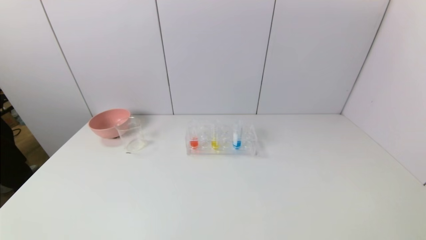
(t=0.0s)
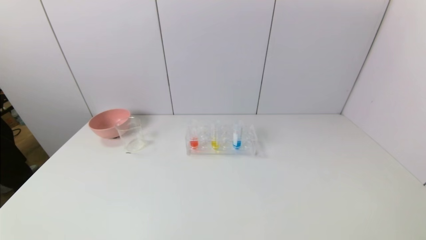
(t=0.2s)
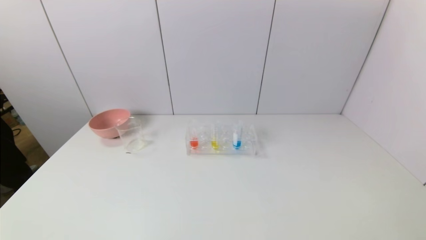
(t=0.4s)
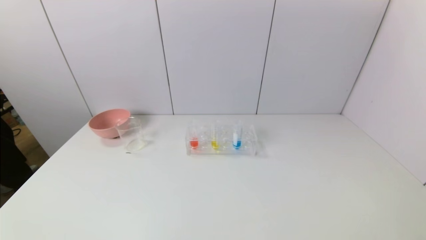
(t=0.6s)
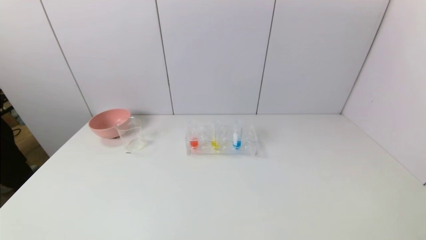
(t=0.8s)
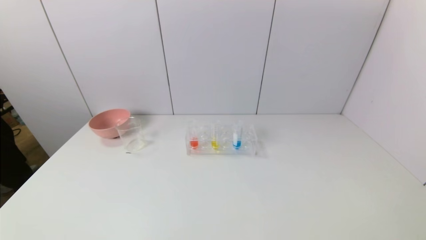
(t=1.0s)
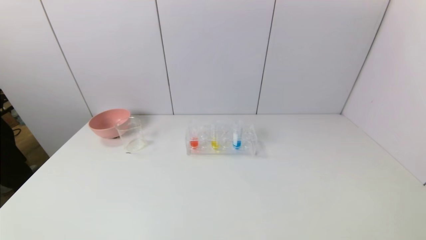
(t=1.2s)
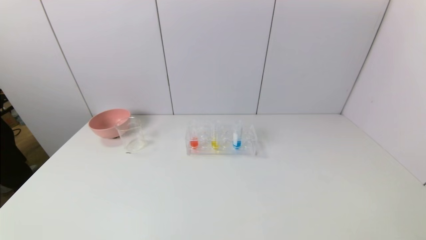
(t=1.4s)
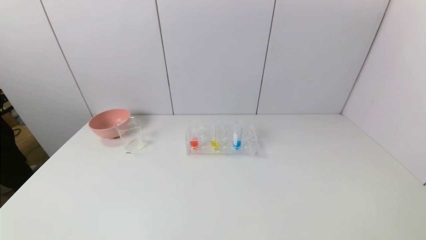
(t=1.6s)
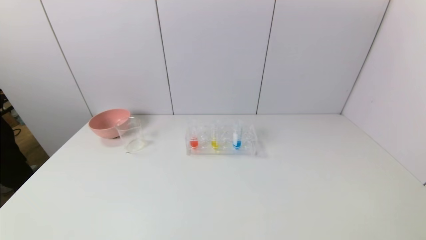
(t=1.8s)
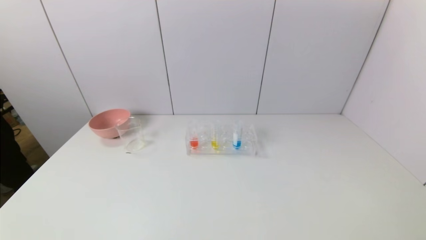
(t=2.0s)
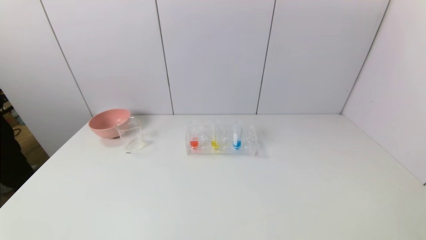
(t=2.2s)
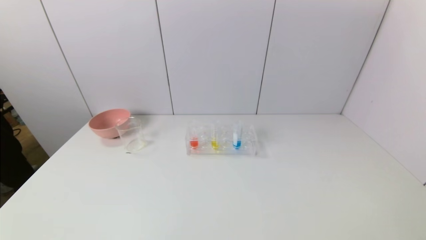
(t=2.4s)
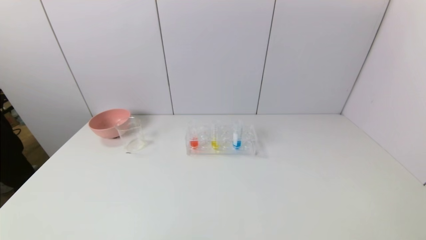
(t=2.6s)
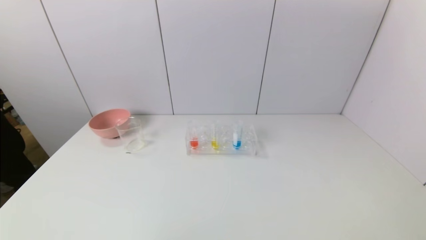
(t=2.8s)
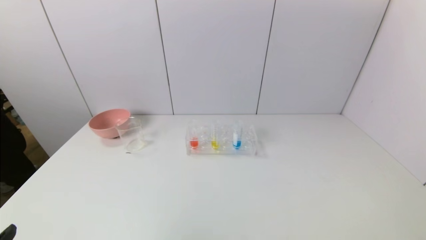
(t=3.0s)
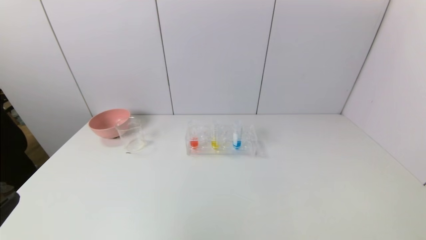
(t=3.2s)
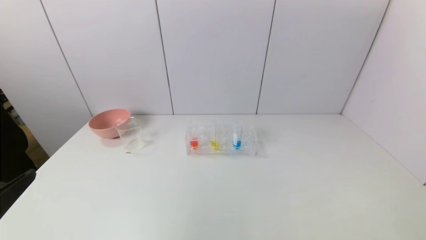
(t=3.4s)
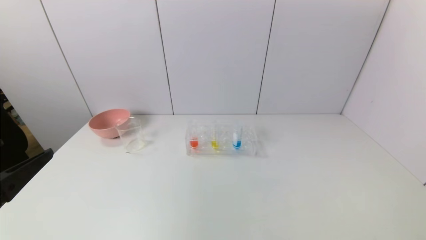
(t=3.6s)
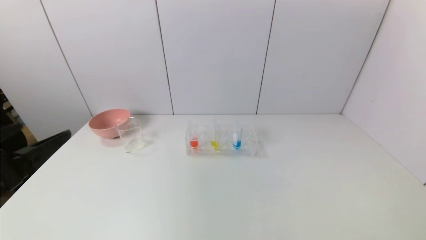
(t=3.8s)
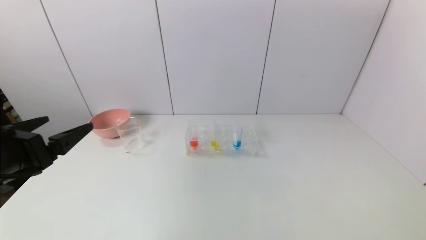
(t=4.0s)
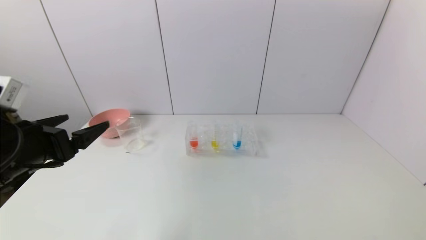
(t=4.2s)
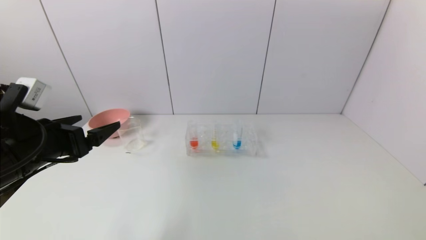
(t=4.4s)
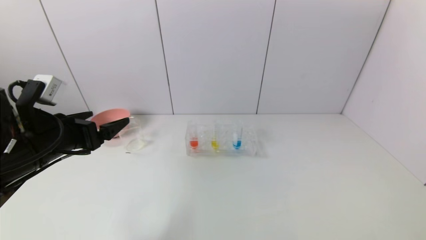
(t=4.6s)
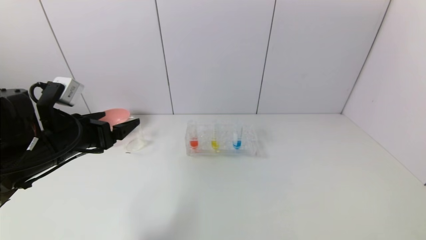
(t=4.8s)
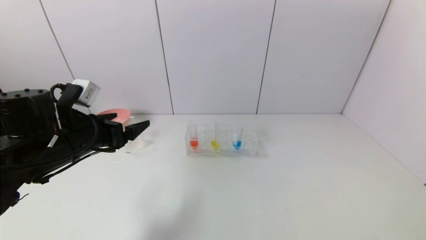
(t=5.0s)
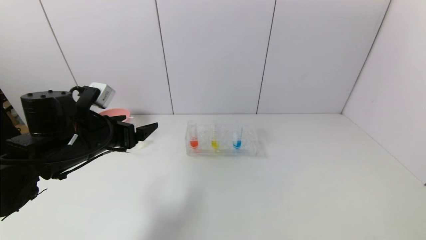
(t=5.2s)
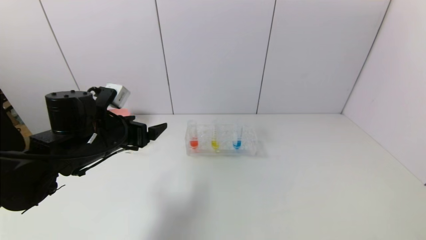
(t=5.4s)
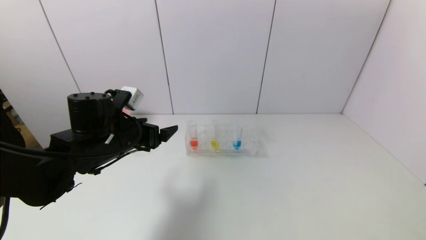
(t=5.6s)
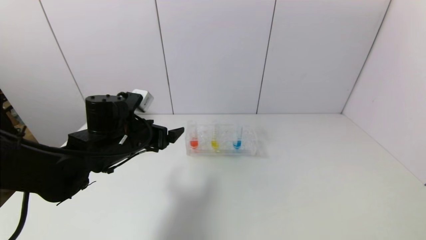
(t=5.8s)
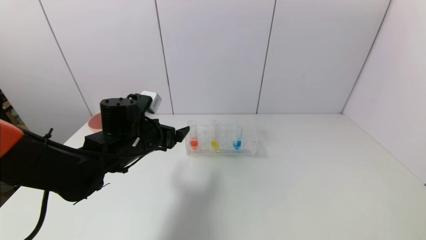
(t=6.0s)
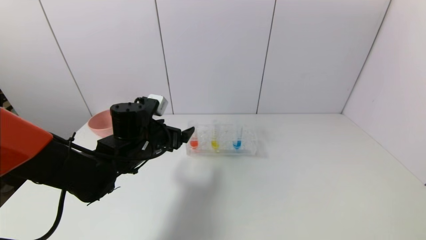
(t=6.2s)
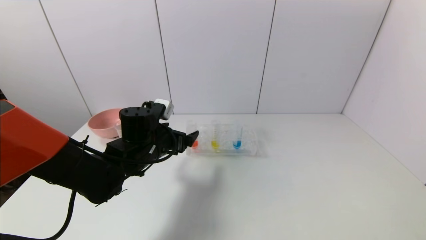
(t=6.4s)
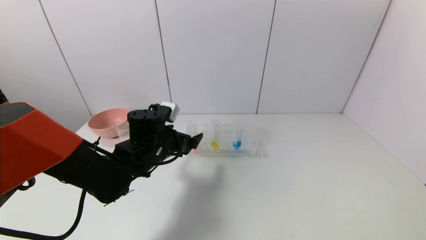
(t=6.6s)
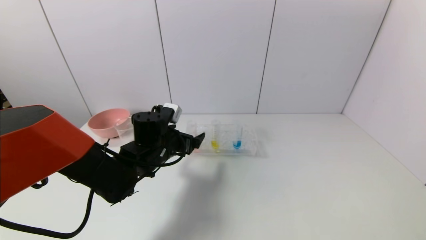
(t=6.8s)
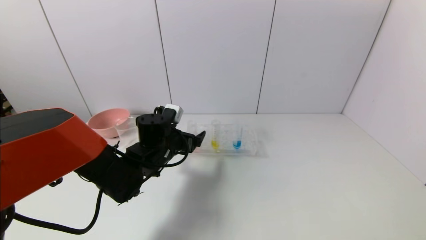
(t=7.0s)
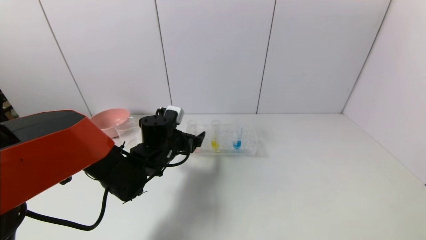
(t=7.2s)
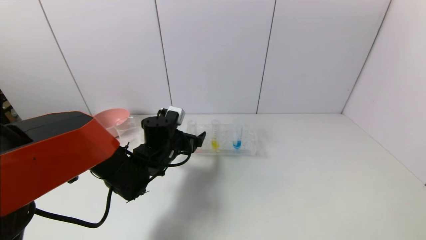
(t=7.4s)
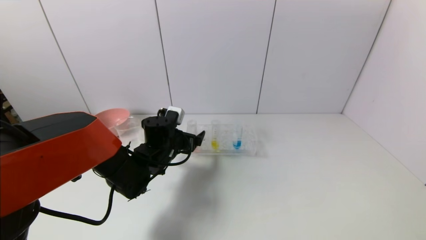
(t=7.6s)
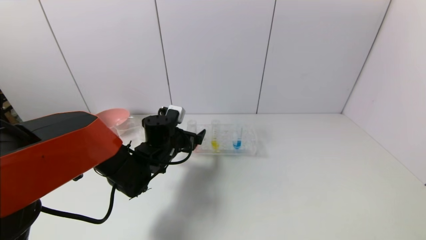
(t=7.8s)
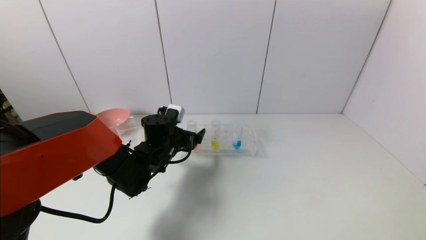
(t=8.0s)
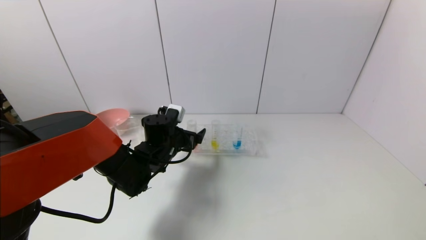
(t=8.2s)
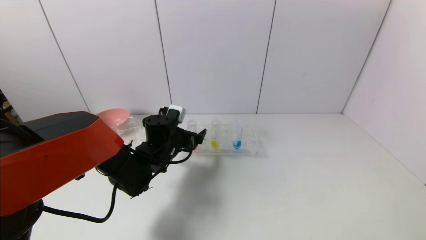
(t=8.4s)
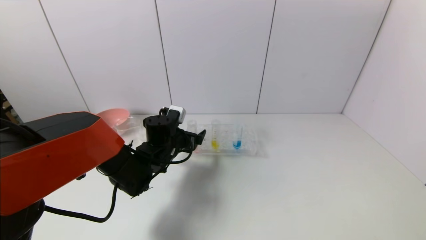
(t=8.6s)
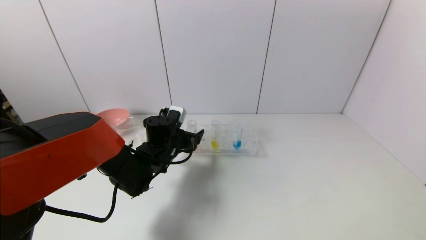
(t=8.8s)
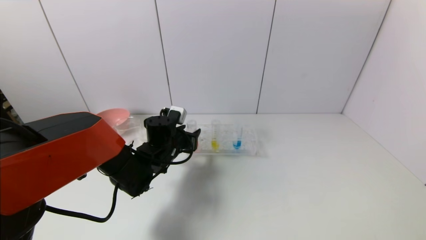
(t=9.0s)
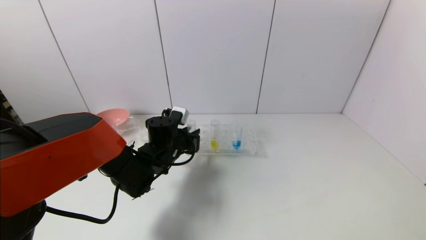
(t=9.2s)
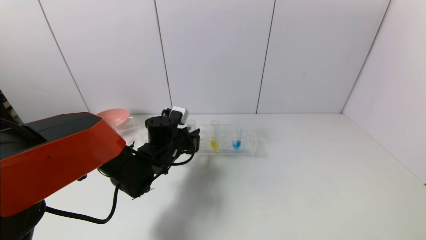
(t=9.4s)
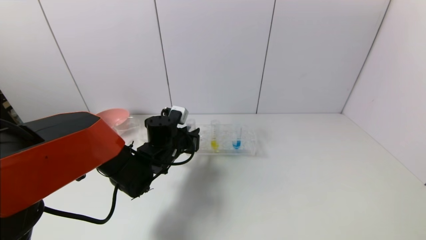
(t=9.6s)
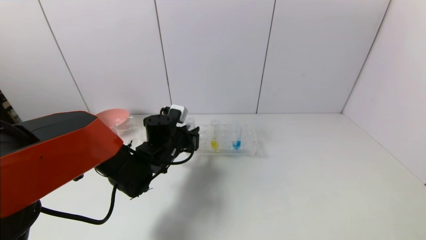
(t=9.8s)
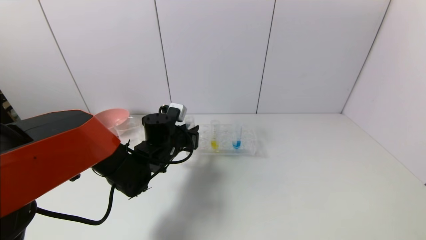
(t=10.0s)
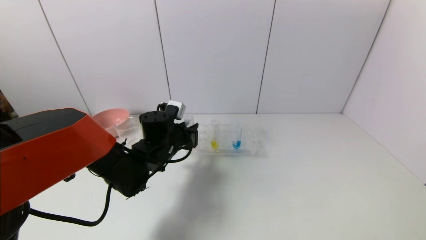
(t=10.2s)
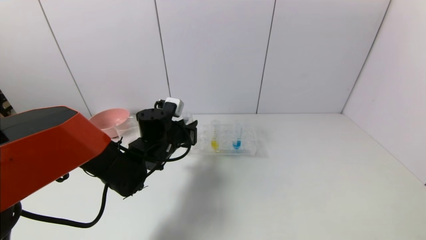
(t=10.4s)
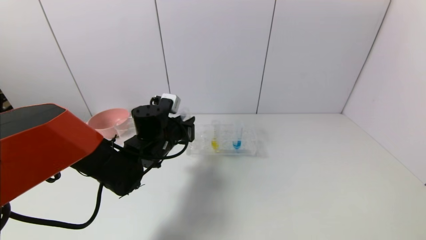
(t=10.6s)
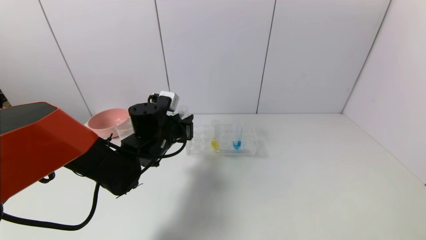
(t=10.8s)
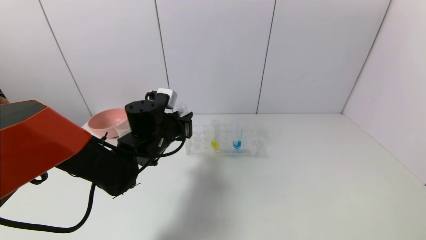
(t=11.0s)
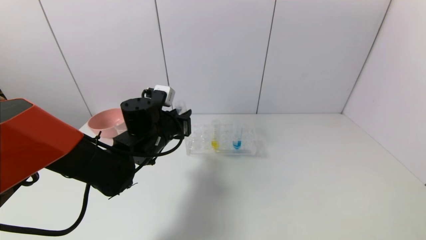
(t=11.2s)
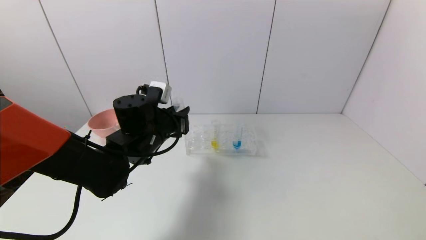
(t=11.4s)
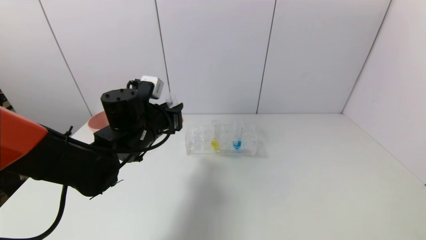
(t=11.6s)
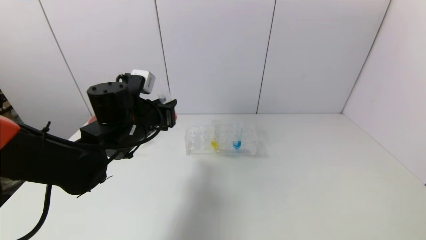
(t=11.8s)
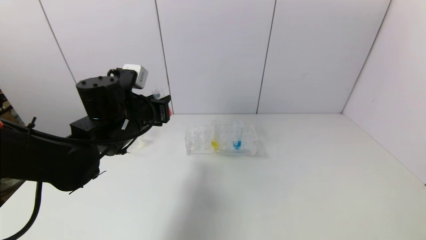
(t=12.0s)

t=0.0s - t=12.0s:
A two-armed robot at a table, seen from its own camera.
Task of the whole recording: pick up the test tube with yellow pigment and the test tube with red pigment by grippers and pour them into the beaker.
Step, t=0.0s - t=9.4s: Grasp the red reagent with the left gripper.
t=0.0s - t=1.6s: Neither gripper changes place.
t=3.0s - t=4.4s: The left gripper travels forward by approximately 20 cm.
t=4.4s - t=6.0s: The left gripper heads to the right, forward and downward, covering roughly 15 cm.
t=6.0s - t=7.6s: The left gripper goes about 10 cm downward and forward.
t=7.6s - t=9.0s: The left gripper closes its fingers.
t=9.0s - t=10.4s: The left gripper closes its fingers.
t=10.4s - t=12.0s: The left gripper shifts approximately 10 cm upward and to the left.

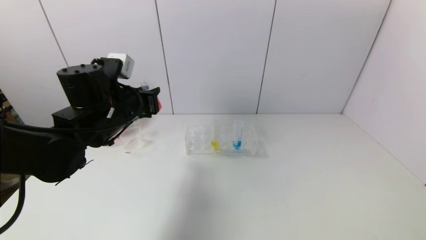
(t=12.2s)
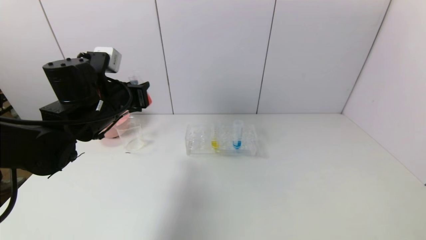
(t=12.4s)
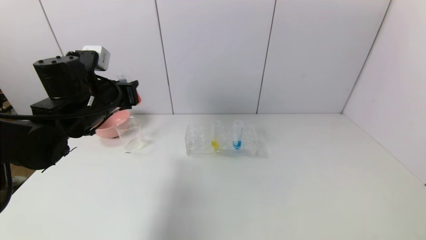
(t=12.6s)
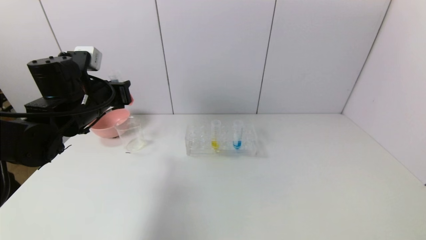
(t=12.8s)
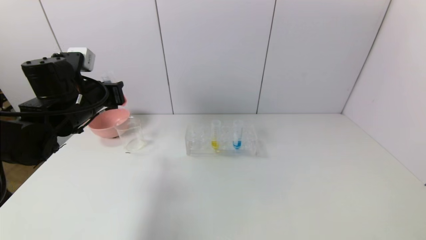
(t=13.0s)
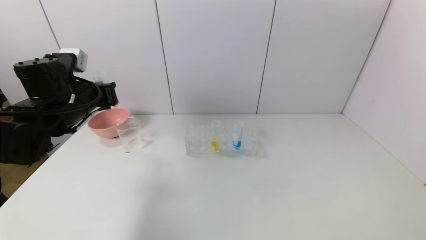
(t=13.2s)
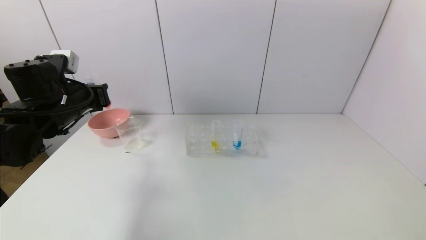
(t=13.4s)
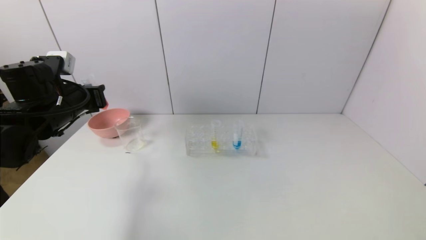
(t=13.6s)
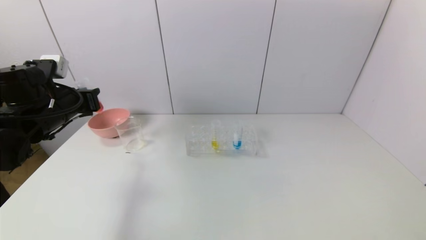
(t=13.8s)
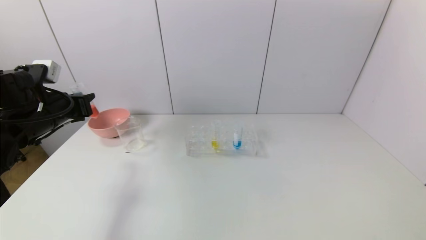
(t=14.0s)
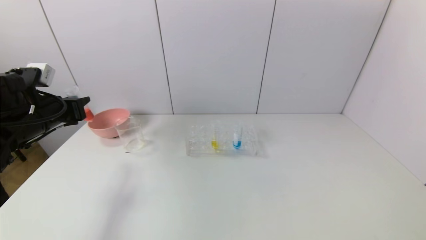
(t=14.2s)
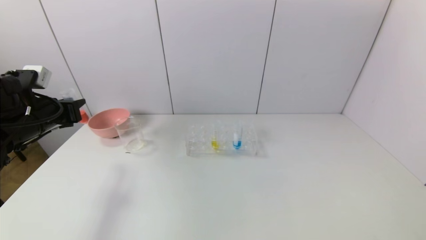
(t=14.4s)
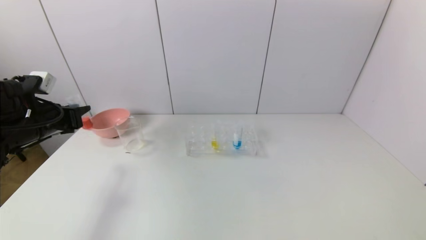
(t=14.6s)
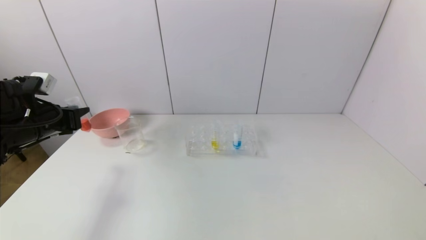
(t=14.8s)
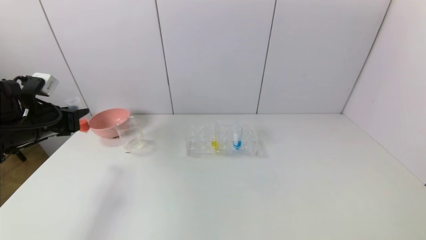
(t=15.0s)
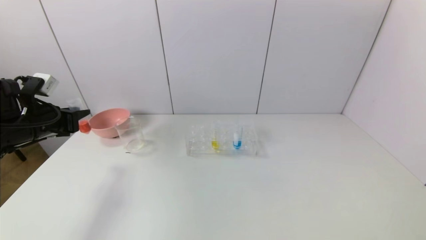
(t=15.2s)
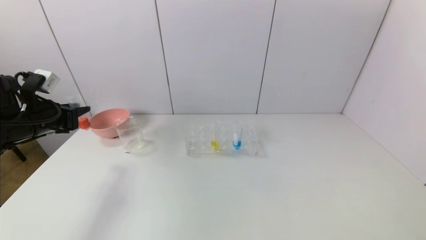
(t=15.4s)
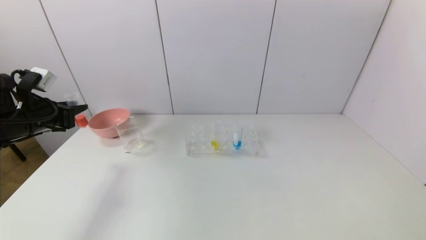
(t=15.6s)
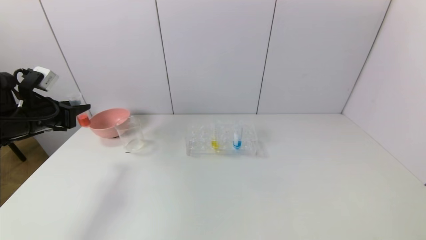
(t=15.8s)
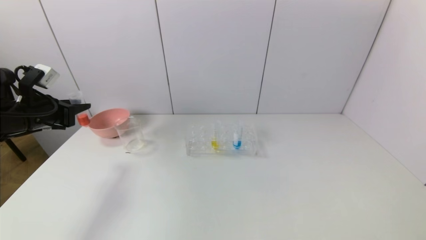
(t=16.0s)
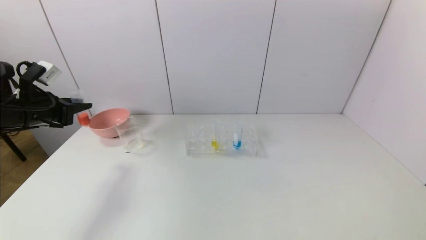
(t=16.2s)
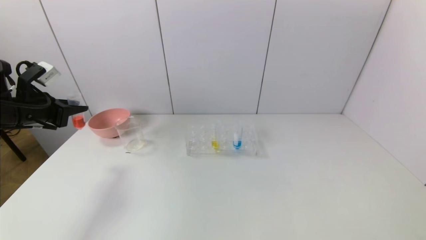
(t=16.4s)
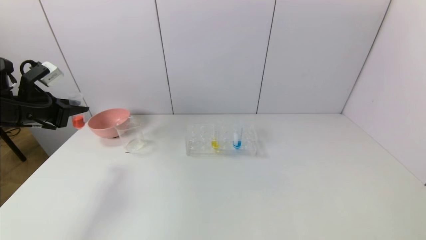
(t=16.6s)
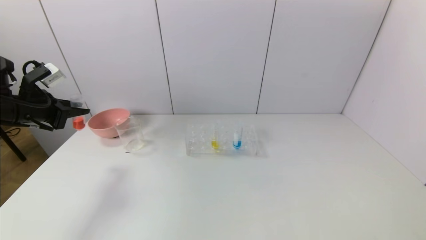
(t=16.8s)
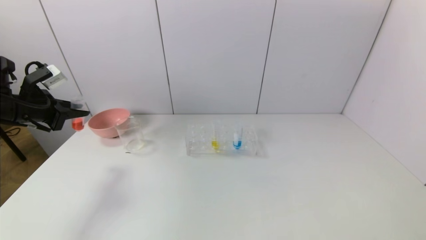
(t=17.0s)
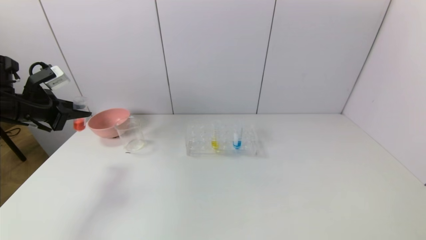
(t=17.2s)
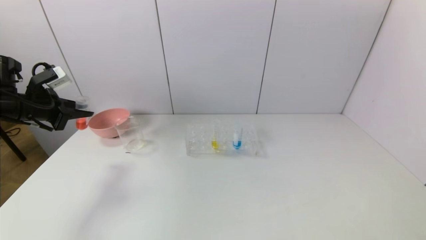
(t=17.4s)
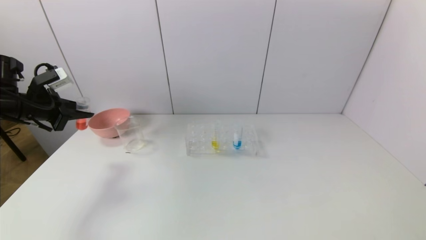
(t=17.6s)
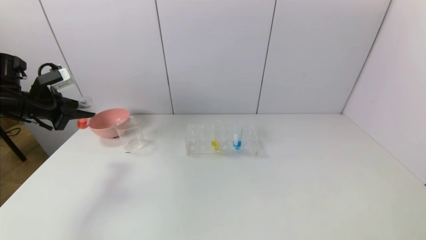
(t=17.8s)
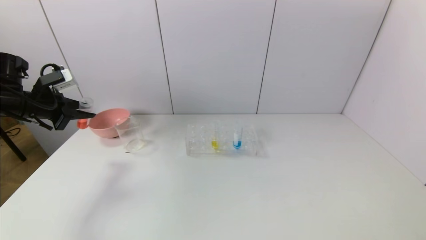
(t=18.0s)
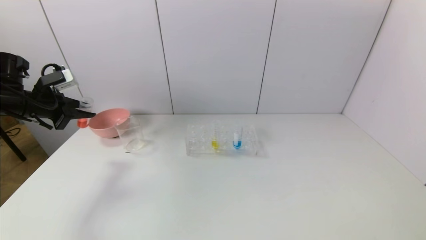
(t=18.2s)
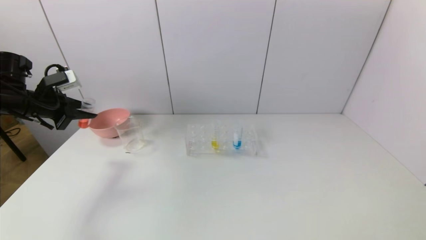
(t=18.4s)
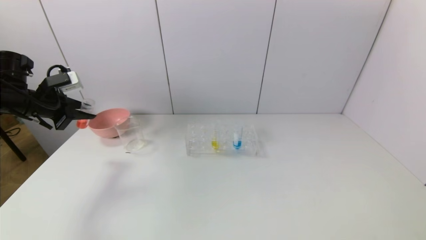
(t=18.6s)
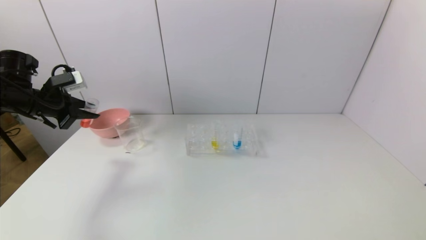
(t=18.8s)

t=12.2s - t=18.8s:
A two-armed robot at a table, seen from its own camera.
Task of the whole recording: pick up the test tube with yellow pigment and the test tube with red pigment by grippers and pour them into the beaker.
t=12.2s - t=13.8s: The left gripper shifts approximately 15 cm to the left.
t=13.8s - t=15.4s: The left gripper goes some 5 cm to the left.
t=17.2s - t=18.8s: The grippers make only small movements.
